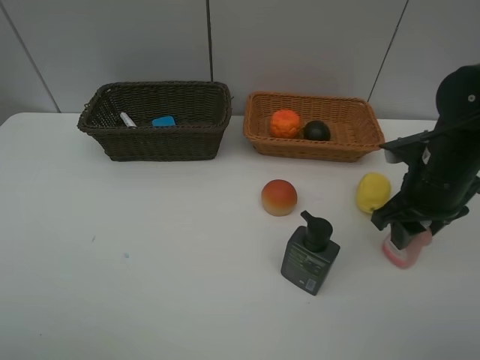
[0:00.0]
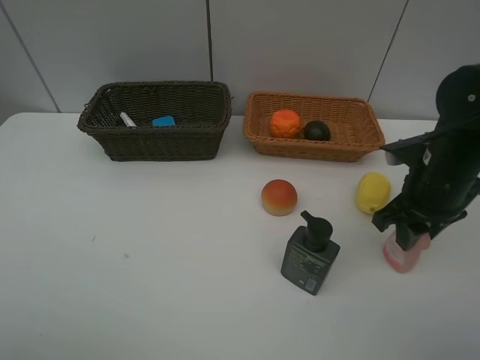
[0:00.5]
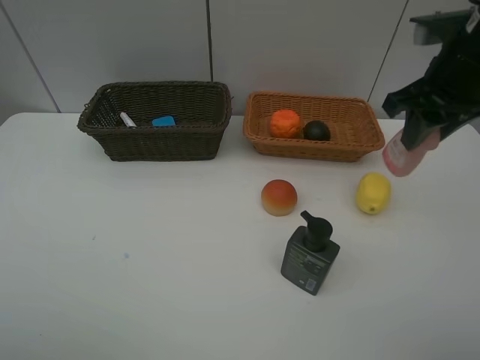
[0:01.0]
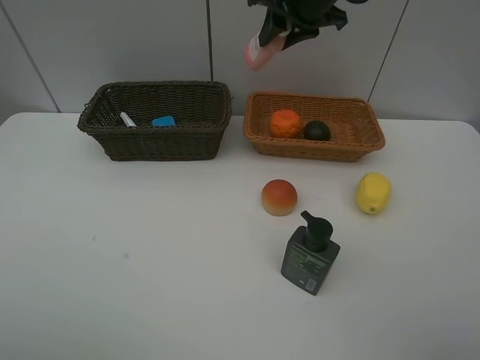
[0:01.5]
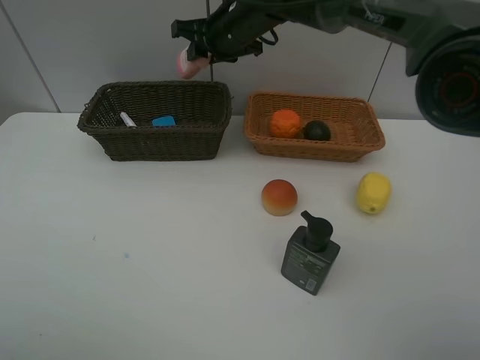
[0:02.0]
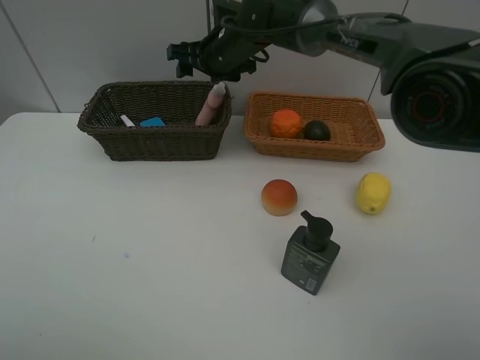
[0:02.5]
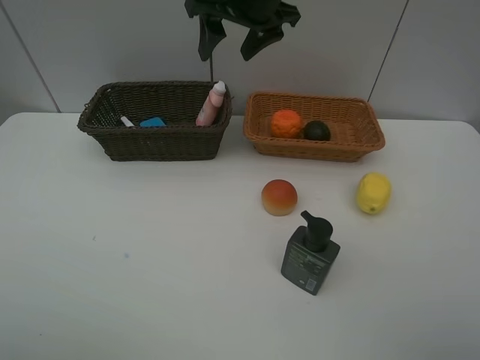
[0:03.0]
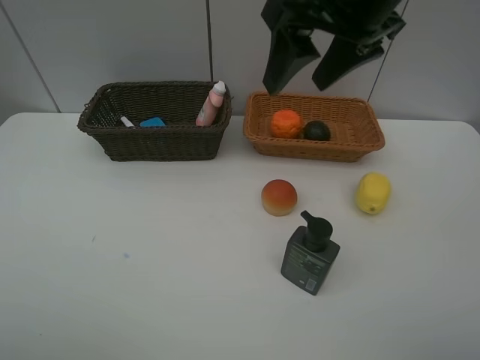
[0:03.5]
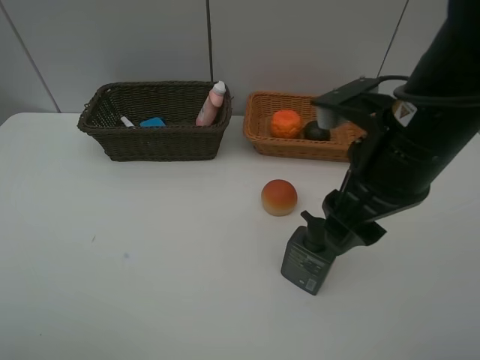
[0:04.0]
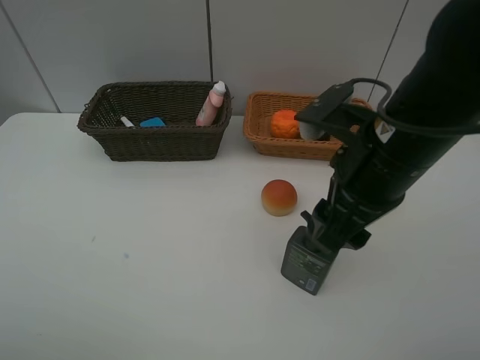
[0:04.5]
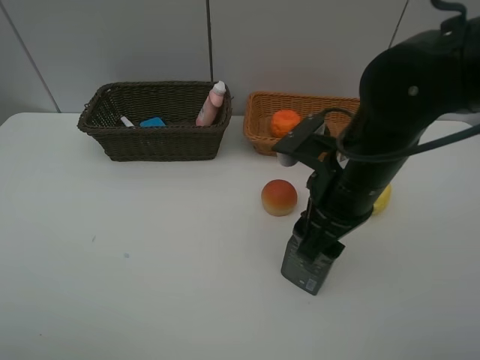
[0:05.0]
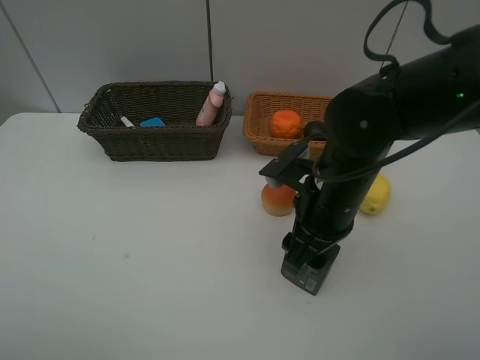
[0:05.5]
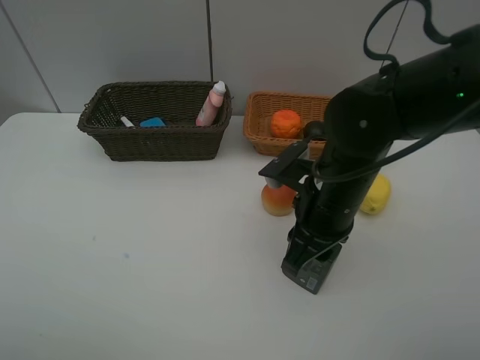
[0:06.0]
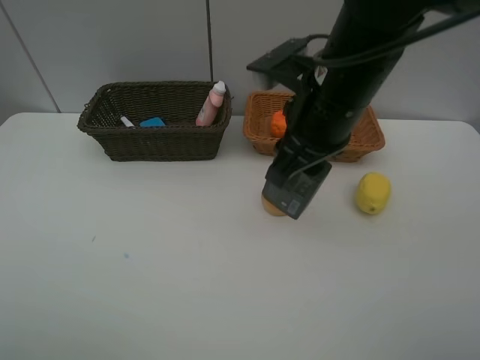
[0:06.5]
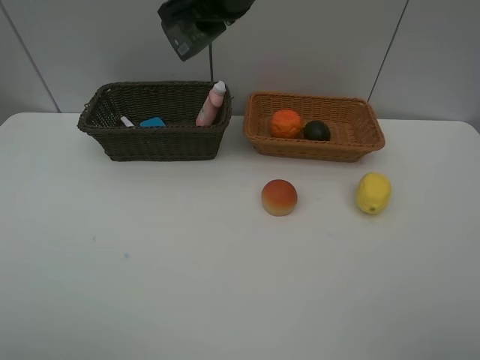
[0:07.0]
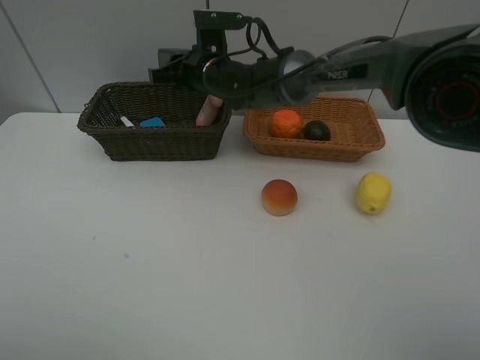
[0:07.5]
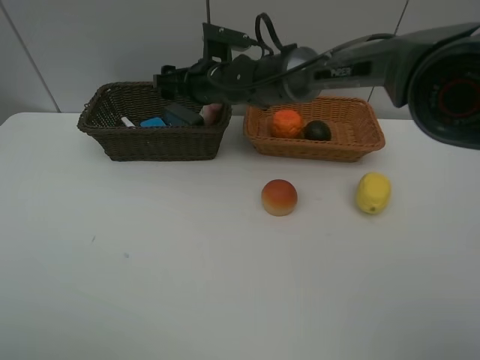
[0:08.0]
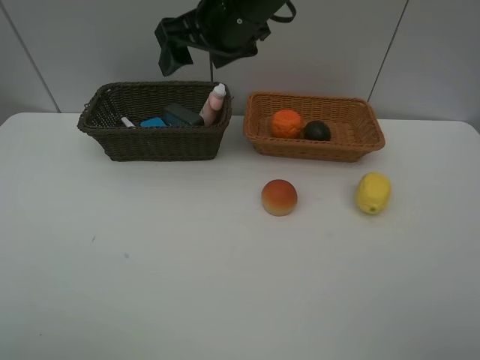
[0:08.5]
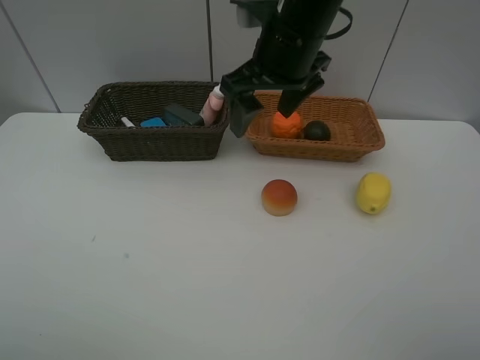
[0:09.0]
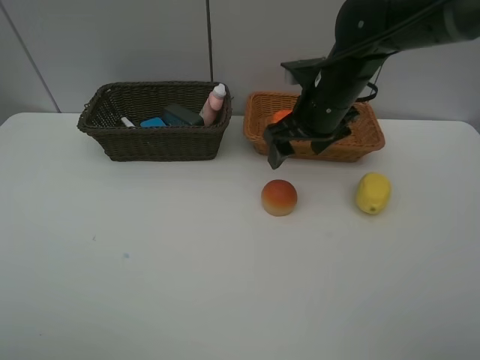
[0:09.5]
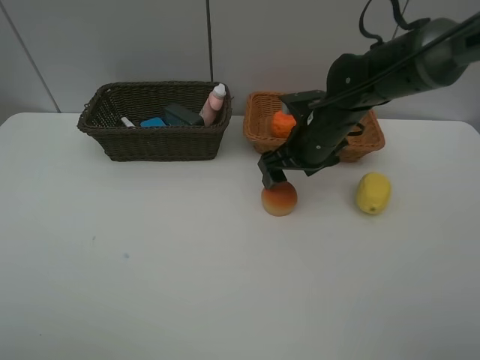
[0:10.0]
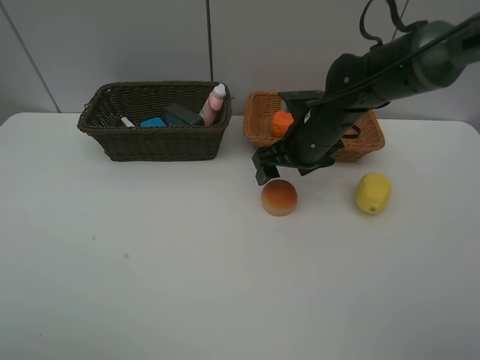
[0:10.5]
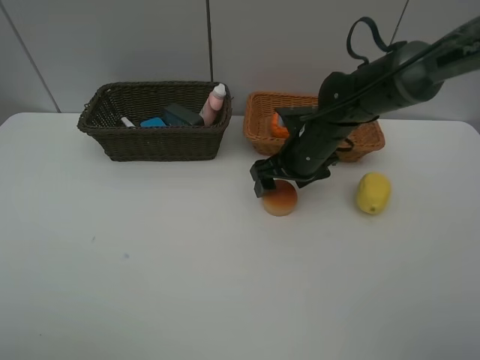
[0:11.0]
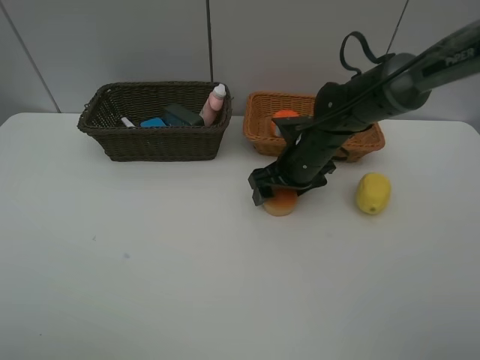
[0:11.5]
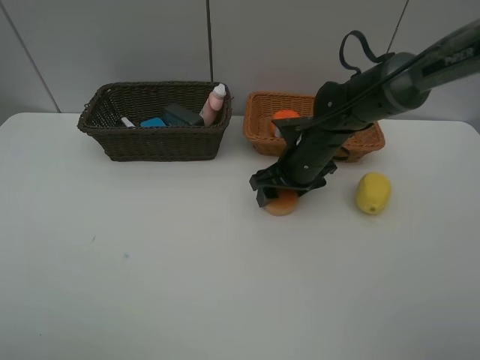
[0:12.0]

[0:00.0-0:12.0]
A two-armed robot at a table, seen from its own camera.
Task of the whole recording: Place multiple objects separately in different baskets.
Step, 1.0 to 2.5 s: Place the laundry detergent in the dark basket with right gripper.
Step, 3.0 to 6.0 s: Pick up the hard facial cleanser with right gripper.
Step, 6.5 to 8.0 s: Place the hard facial cleanser in the dark basket with right gripper.
0.0 to 2.0 s: The right gripper is displaced to the left and forward by roughly 35 cm.
2.0 to 4.0 s: The right gripper is displaced backward and to the right by approximately 30 cm, and opens.
4.0 to 6.0 s: The right gripper travels downward by some 10 cm, and closes.
6.0 to 8.0 s: The right gripper is displaced forward and to the left by approximately 25 cm, and opens its fingers.
8.0 to 10.0 s: The right gripper travels to the right and backward by about 20 cm.
10.0 to 12.0 s: There are only small adjustments of the grippers.

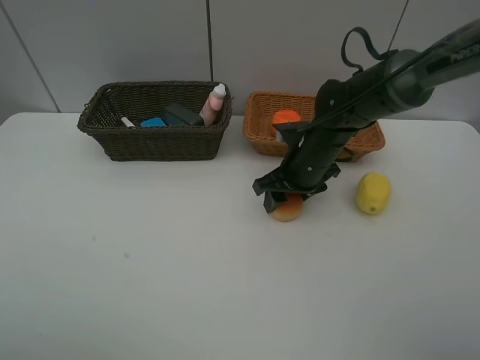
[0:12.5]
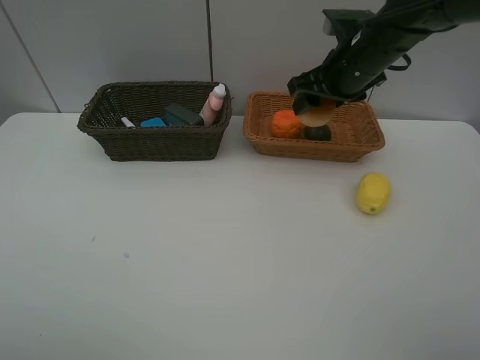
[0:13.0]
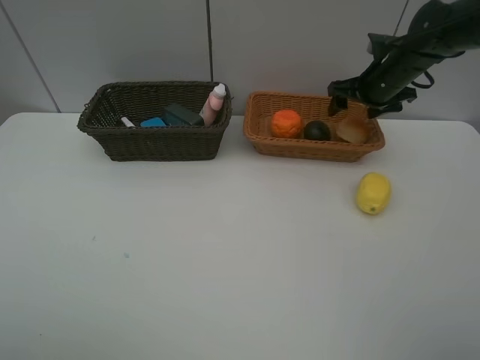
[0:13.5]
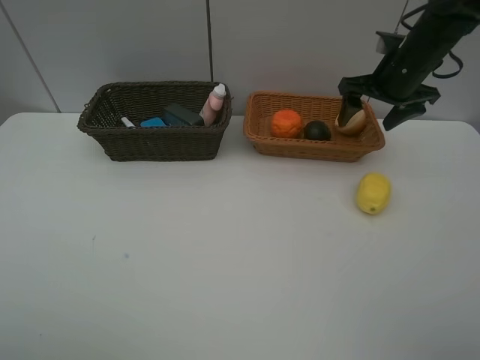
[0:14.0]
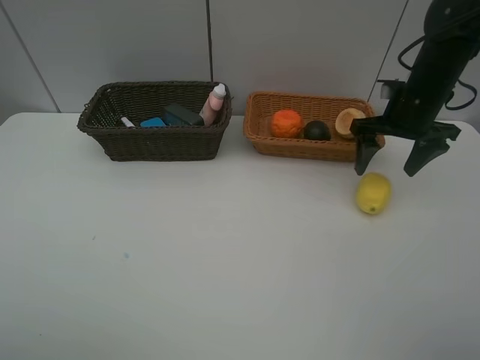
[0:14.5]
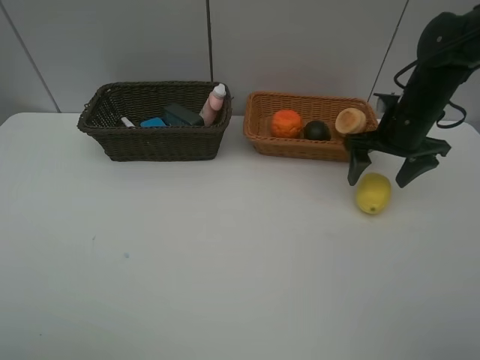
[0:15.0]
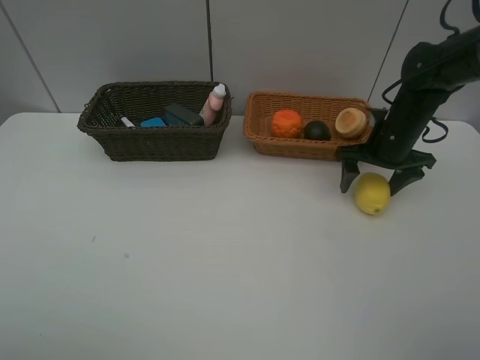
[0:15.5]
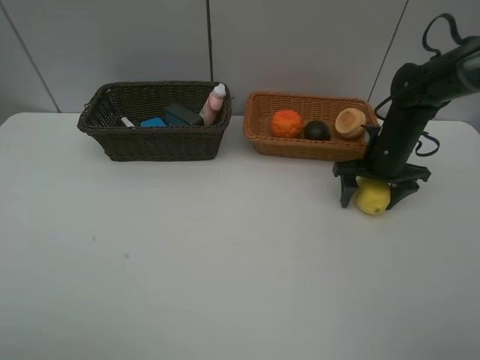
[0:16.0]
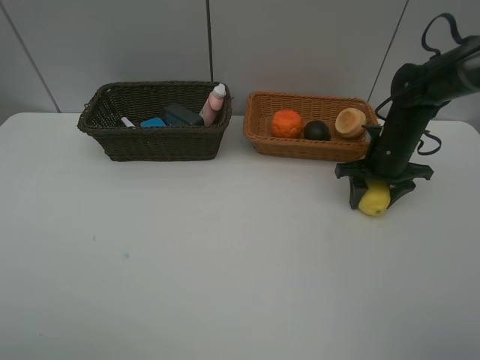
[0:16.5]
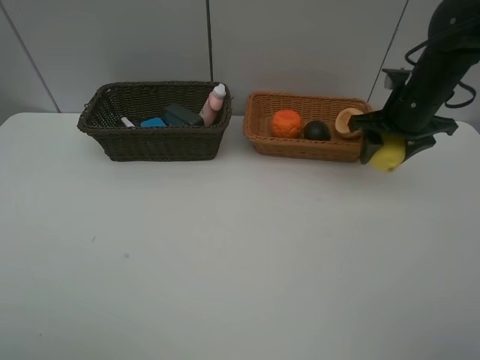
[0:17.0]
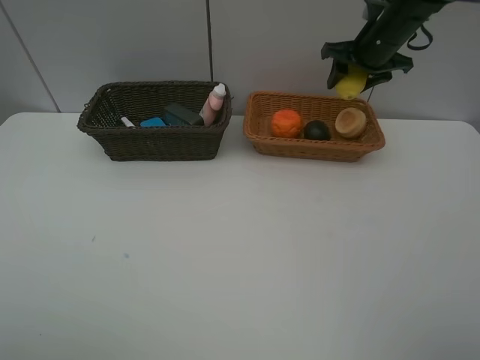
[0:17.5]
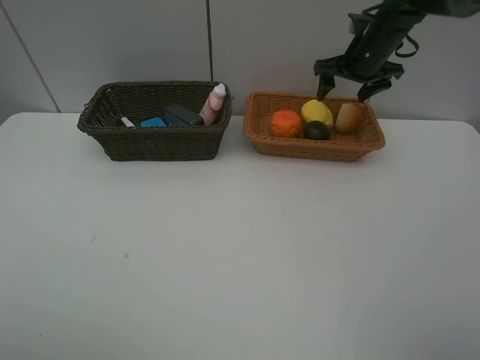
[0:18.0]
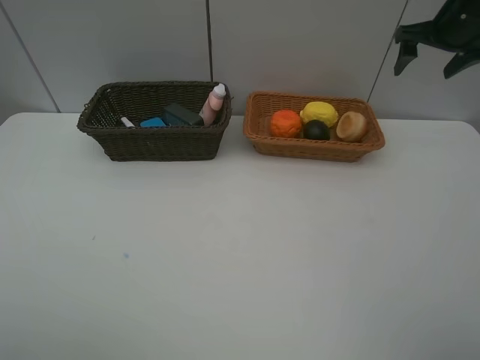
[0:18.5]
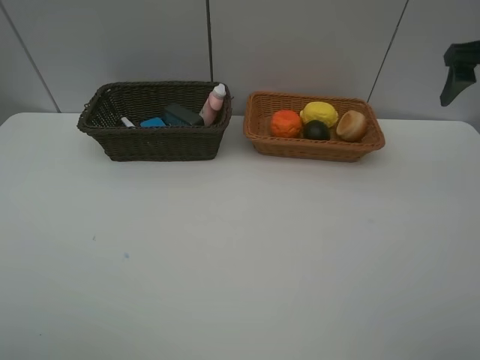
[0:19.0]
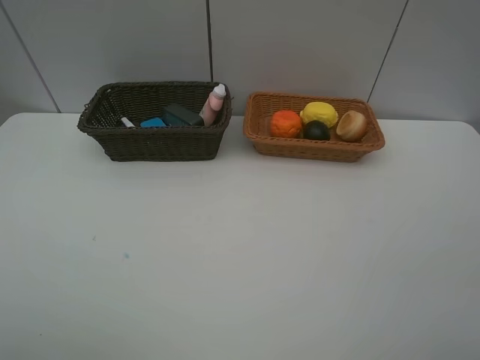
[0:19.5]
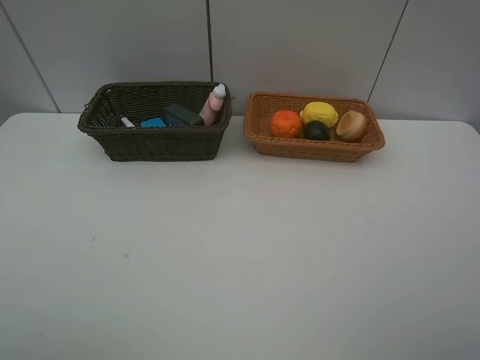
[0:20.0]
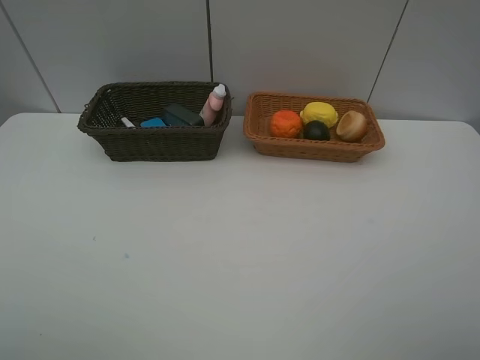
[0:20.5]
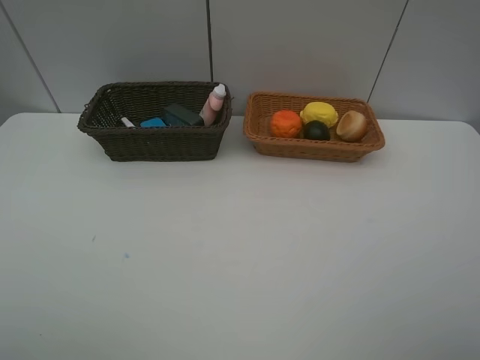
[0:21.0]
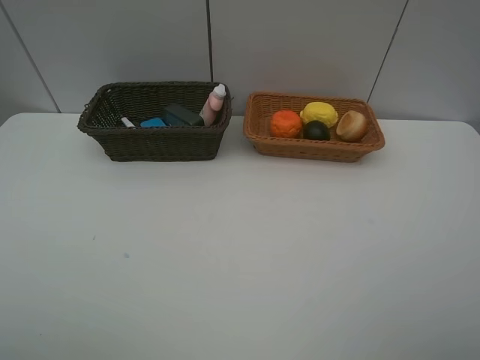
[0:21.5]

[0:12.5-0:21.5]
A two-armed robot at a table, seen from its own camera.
Task of the whole recording: Place multiple objects separately in different baskets.
Step, 13.0 to 13.5 s: Place the egg yolk pastry in the light basket with right gripper.
Step, 14.0 to 16.5 s: Pick up the lemon with right gripper.
Step, 17.0 to 18.0 s: Place the lemon in the light basket with right gripper.
12.5 to 14.5 s: The right gripper travels to the right and upward by approximately 15 cm, and opens.
14.5 to 17.0 s: The right gripper travels downward and back again, some 10 cm each way, and closes up.
17.0 to 19.5 s: The right gripper heads backward and upward, covering some 30 cm, and opens.

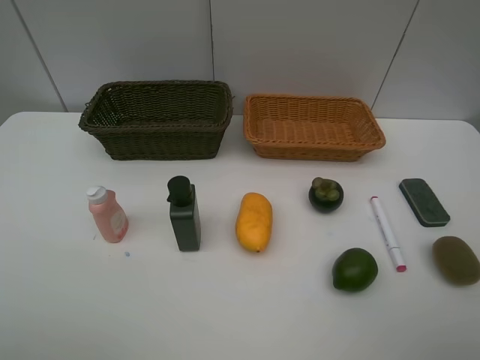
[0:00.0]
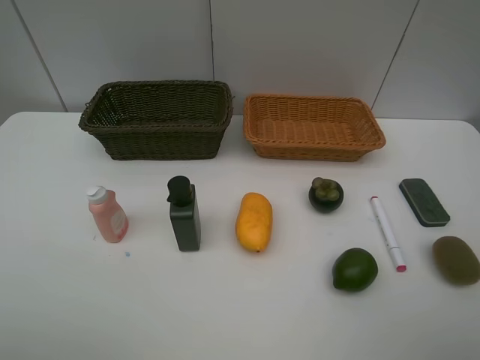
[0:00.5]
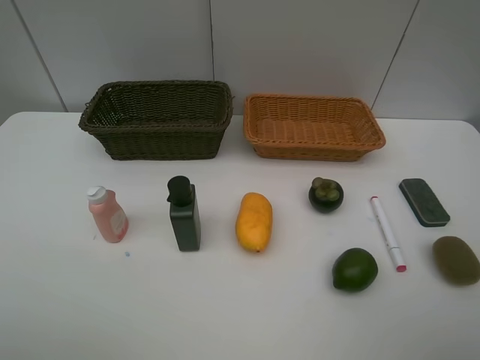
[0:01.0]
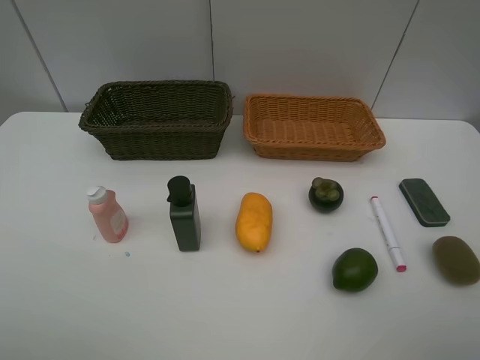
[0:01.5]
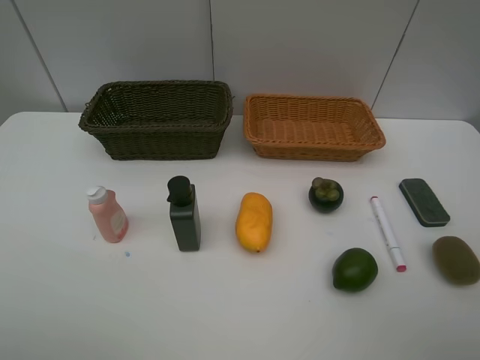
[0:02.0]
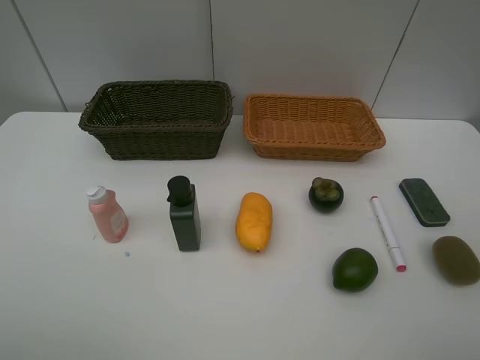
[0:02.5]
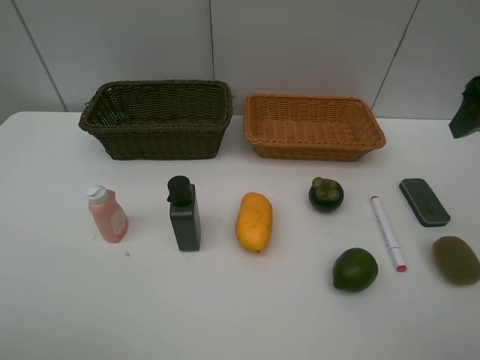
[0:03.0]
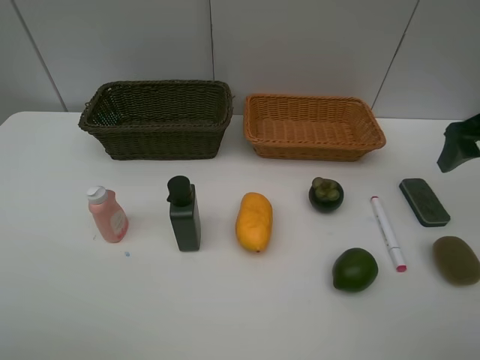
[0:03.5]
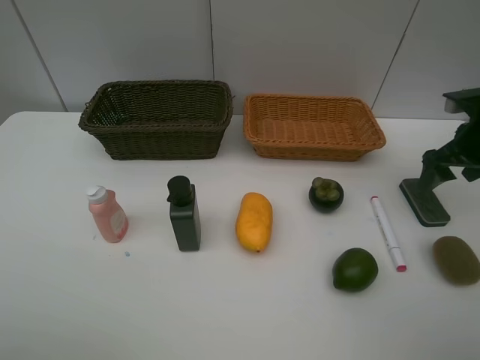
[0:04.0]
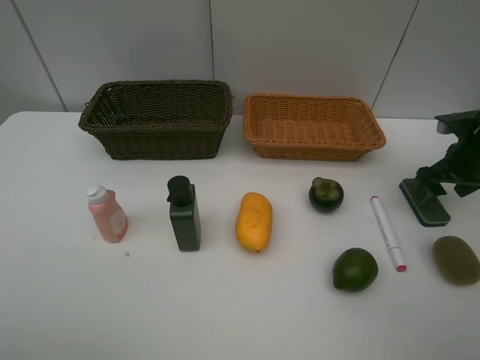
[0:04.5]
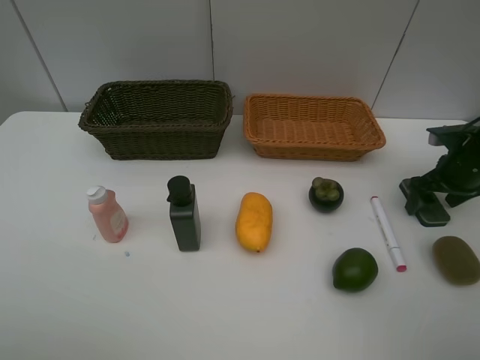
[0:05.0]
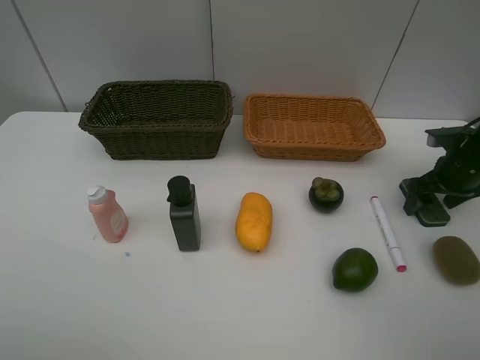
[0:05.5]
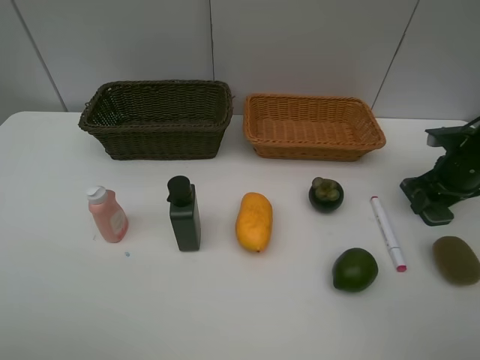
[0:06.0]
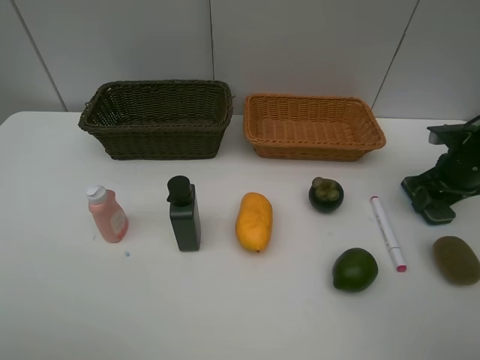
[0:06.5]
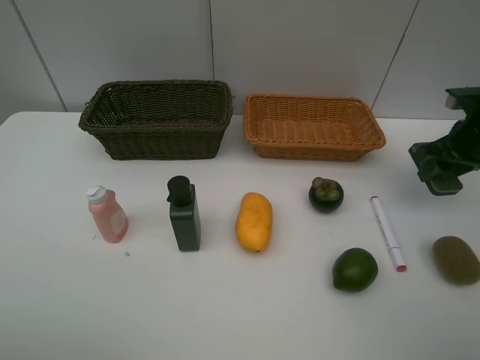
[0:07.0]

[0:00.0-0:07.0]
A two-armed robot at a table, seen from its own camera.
Task of the whole recording: Place multiple objects separately in different baskets.
Step, 0.0 to 6.5 s: Pick up blackboard eraser with right gripper.
2.0 to 3.5 s: The right gripper heads forward, covering about 25 cm.
3.5 to 5.0 s: The right gripper moves downward, about 15 cm.
5.0 to 7.0 s: The right gripper moves upward, about 5 cm, and closes its fingers.
